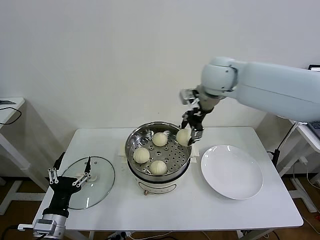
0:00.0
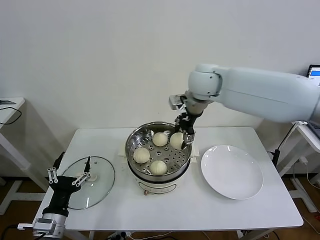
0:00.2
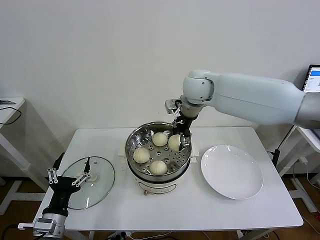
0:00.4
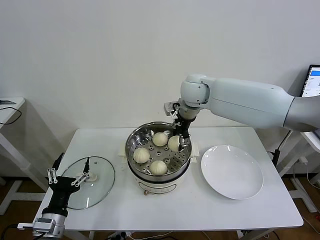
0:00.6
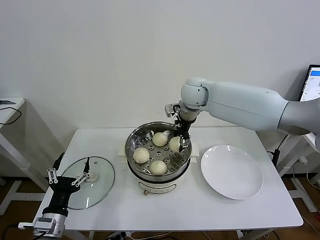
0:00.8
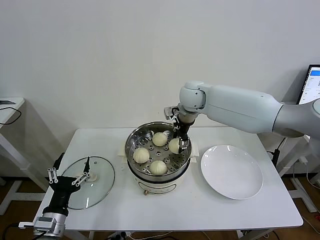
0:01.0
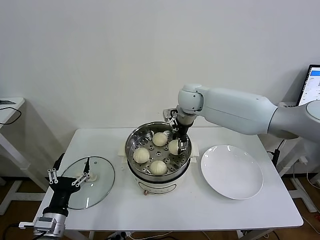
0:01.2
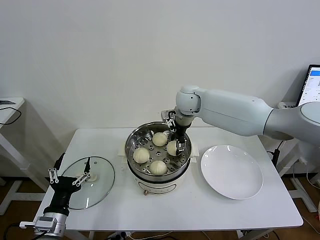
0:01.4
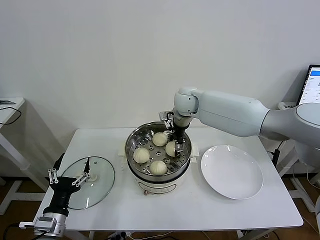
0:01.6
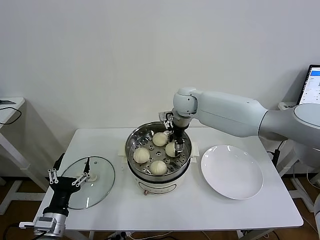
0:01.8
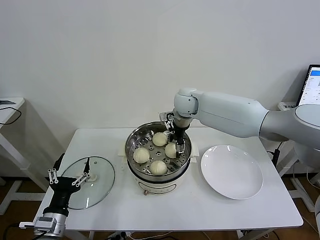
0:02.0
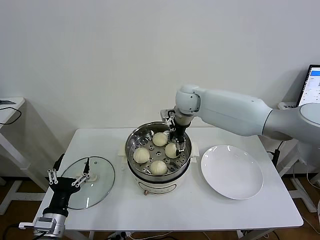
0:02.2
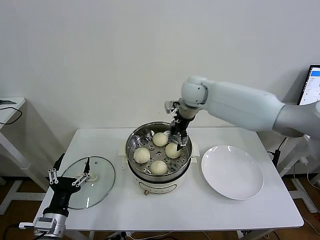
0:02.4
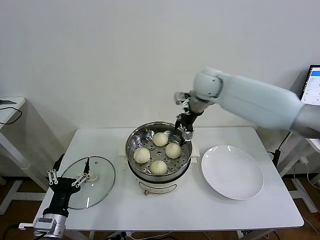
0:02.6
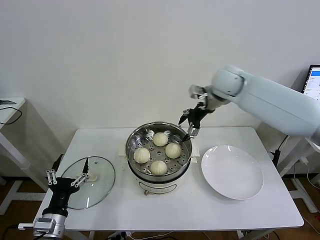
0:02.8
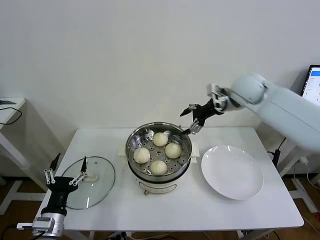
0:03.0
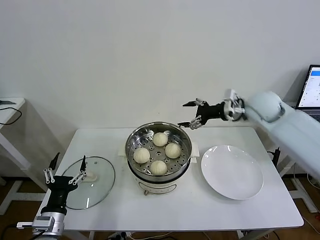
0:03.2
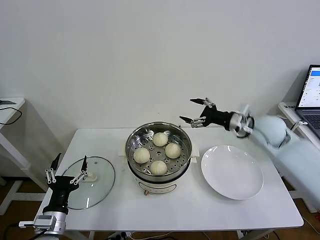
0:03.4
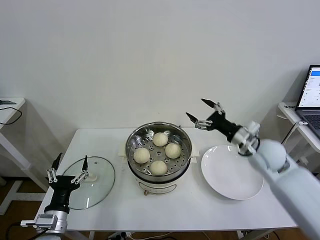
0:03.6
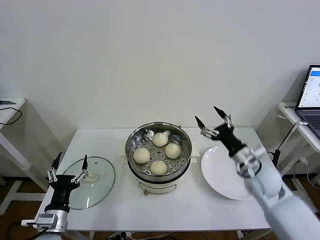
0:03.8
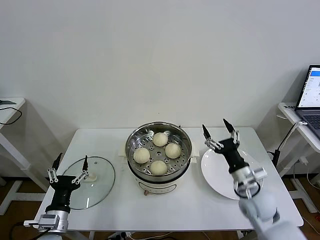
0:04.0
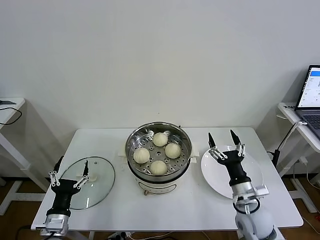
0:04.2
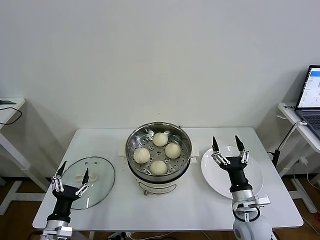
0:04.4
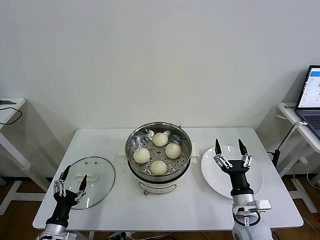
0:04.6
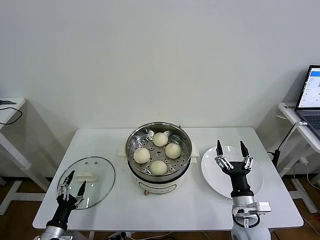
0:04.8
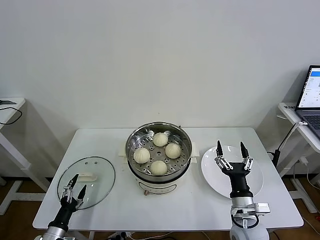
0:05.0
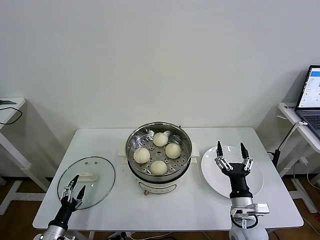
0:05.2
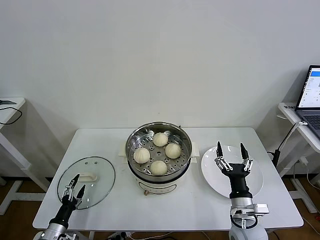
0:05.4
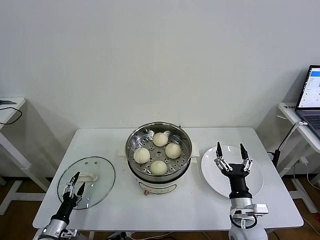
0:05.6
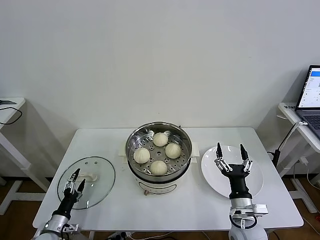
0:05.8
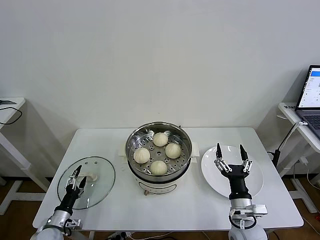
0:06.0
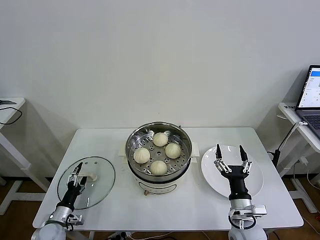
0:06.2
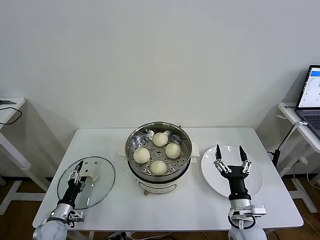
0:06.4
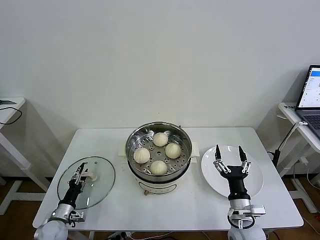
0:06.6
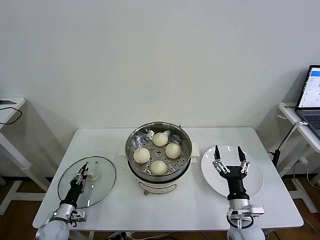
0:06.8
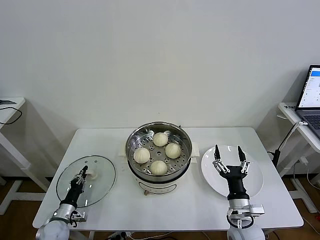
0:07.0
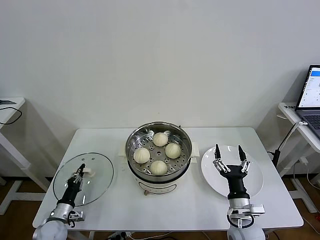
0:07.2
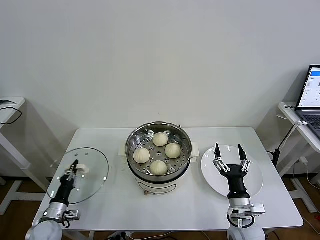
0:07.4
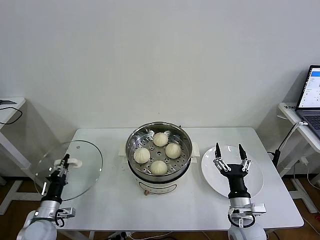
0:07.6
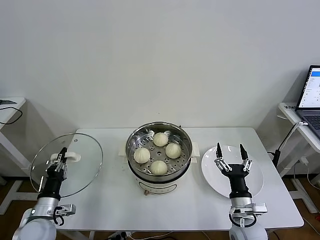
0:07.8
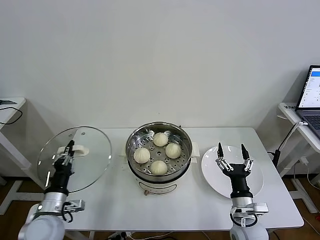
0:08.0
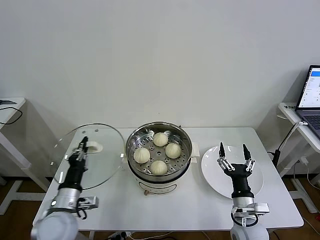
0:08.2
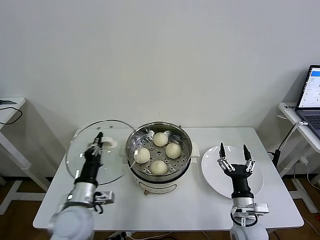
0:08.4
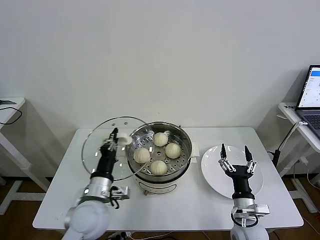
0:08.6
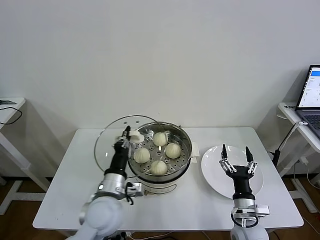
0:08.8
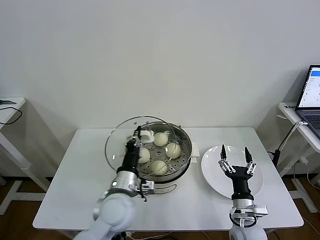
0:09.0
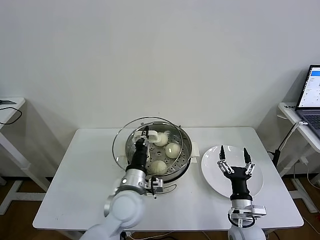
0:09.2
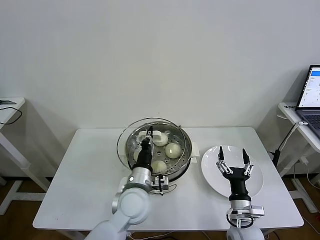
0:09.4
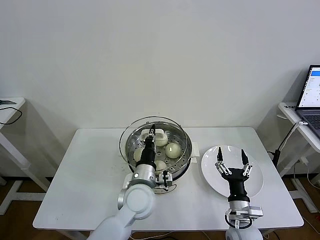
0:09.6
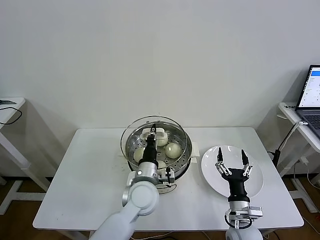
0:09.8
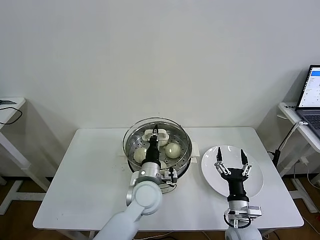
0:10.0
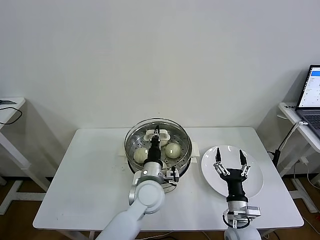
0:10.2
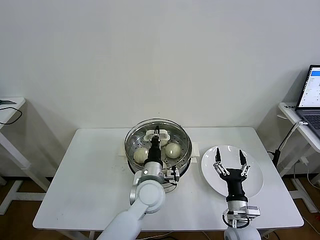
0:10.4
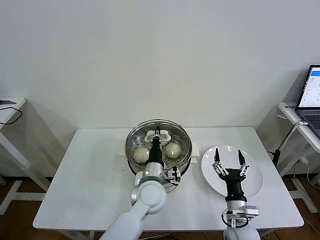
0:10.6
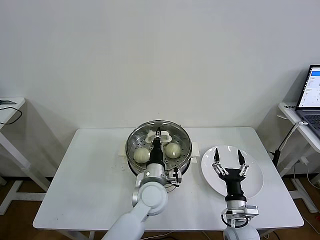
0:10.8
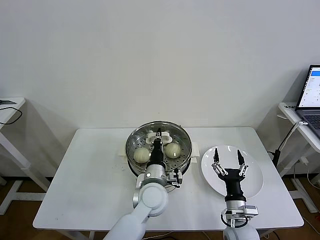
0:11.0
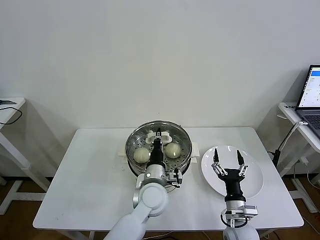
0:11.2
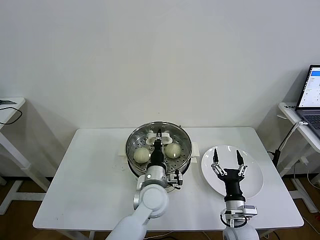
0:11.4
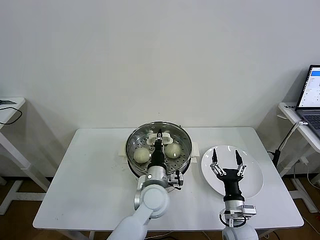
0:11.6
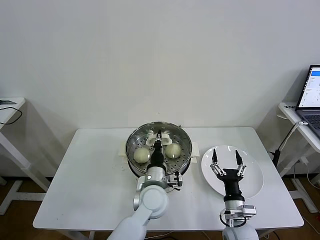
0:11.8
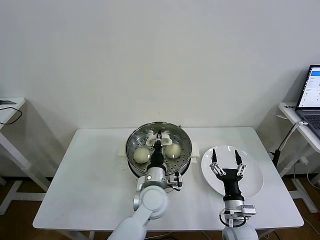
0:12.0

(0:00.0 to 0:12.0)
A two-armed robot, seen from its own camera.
Task of the whole recording: take steamed baozi put them in steamer then cover it.
Step, 0:00.0 - 0:02.2: Place the baozi on the steamer with right gripper.
Step, 0:02.4 - 0:07.0: Grasp the pot lid with left gripper.
0:00.0 - 0:01.6: The right gripper shifts approximately 15 cm downward, to the left and forward.
0:01.6 - 0:03.0: The right gripper moves to the right, approximately 15 cm, and opens its fingers.
0:03.0 - 0:04.4: The left gripper is displaced downward by roughly 5 cm; the right gripper travels backward and downward by some 40 cm.
0:04.4 - 0:06.0: The left gripper shifts roughly 15 cm downward, to the left and forward.
0:06.0 - 0:07.6: The left gripper heads upward, covering about 5 cm, and closes its fingers.
0:07.6 - 0:09.0: The left gripper is displaced to the right and upward by about 30 cm.
0:09.0 - 0:10.4: The left gripper travels to the right and forward by roughly 10 cm.
0:10.4 - 0:12.0: The grippers stay close to where they were, moving slightly.

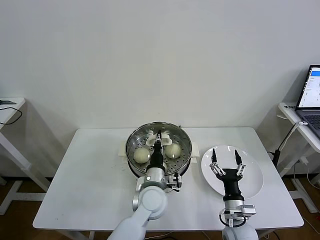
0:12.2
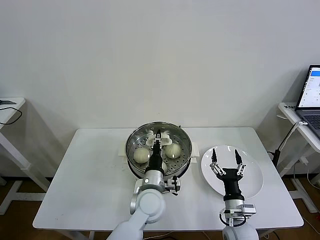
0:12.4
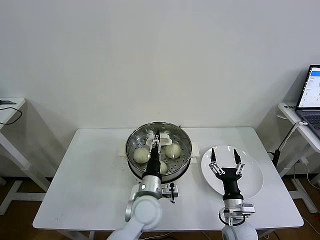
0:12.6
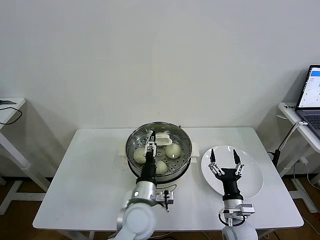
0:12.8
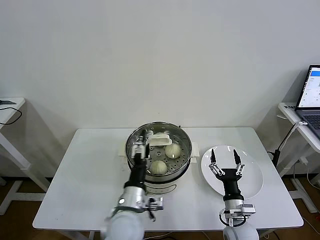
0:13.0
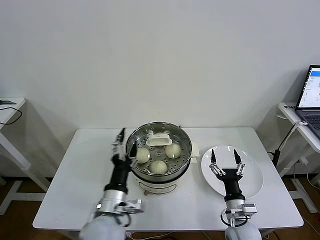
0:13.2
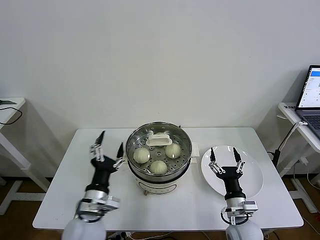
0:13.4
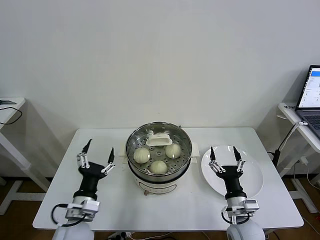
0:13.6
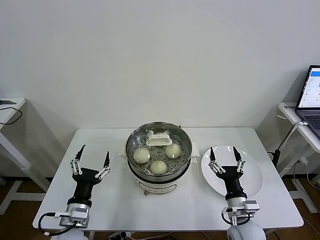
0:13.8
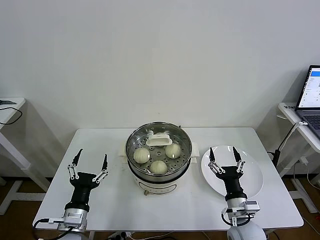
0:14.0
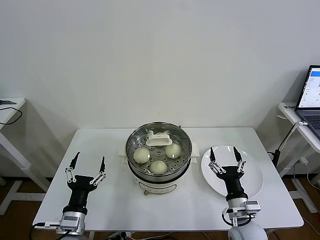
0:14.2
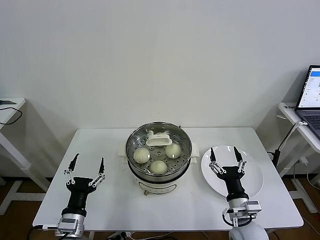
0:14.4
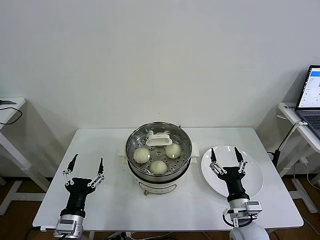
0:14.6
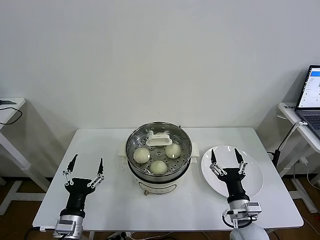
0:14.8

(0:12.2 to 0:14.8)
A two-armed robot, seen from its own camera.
Task of the whole recording: take steamed baozi put them in steamer then cover it.
0:12.2 - 0:13.4: The left gripper goes about 20 cm to the left and backward, and opens up.
0:13.4 - 0:14.8: The left gripper is displaced to the left by about 10 cm.

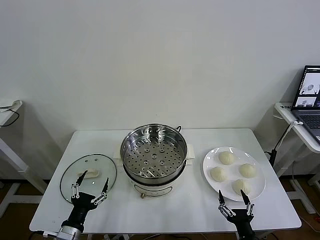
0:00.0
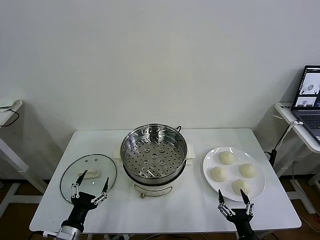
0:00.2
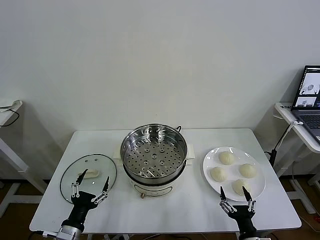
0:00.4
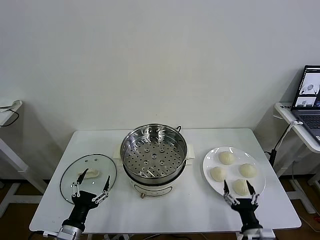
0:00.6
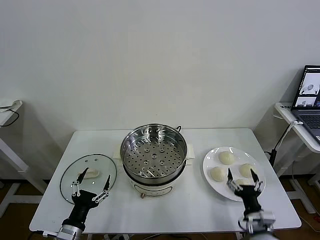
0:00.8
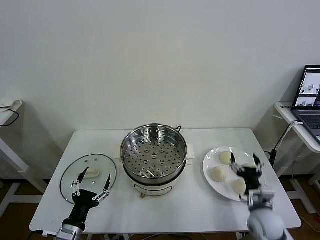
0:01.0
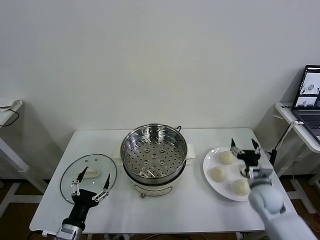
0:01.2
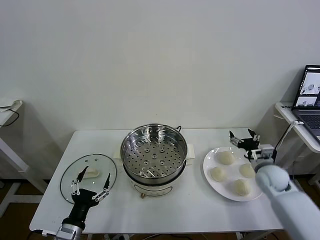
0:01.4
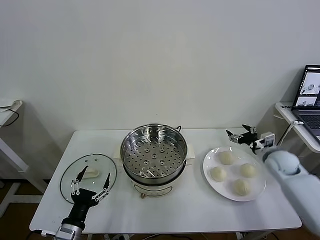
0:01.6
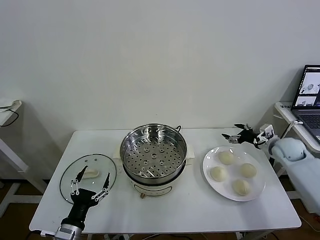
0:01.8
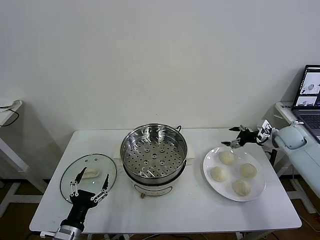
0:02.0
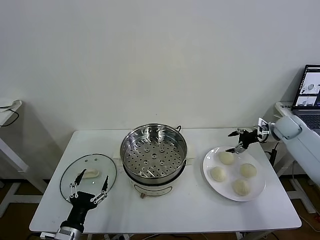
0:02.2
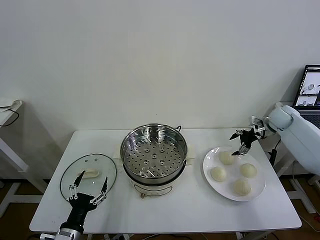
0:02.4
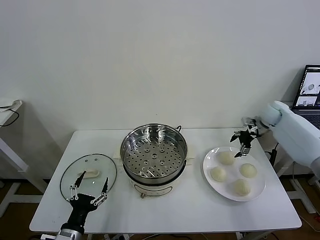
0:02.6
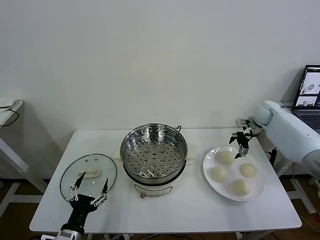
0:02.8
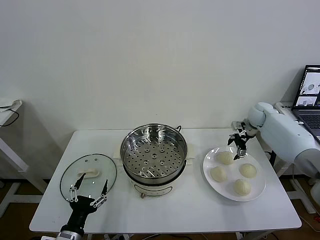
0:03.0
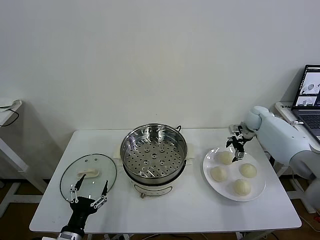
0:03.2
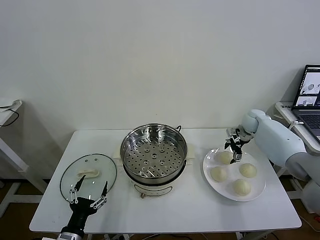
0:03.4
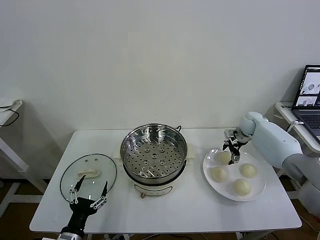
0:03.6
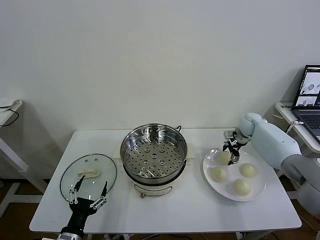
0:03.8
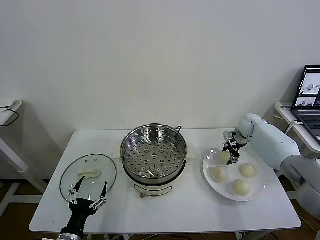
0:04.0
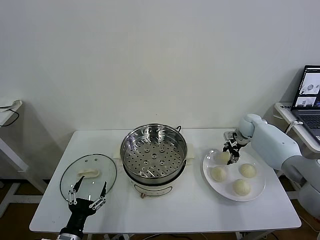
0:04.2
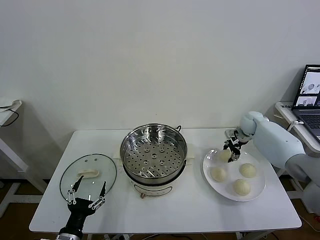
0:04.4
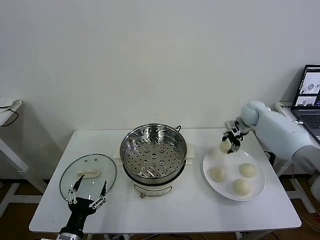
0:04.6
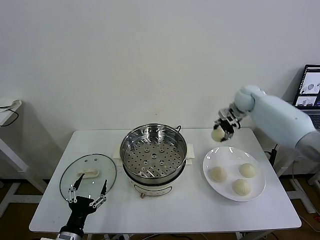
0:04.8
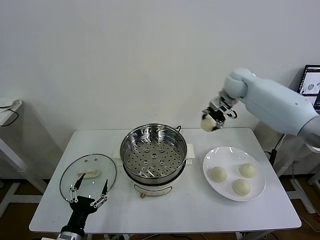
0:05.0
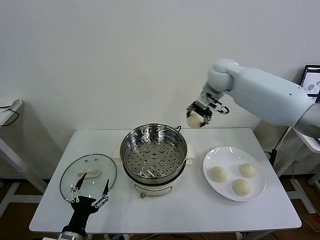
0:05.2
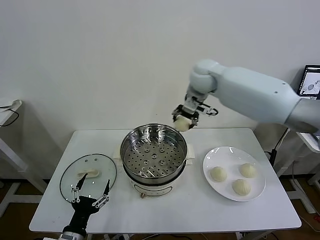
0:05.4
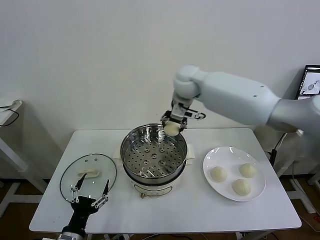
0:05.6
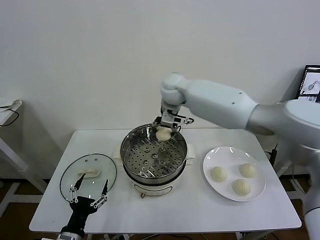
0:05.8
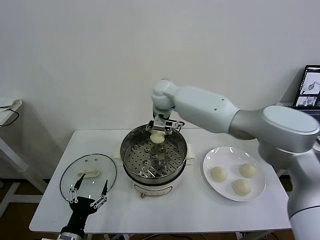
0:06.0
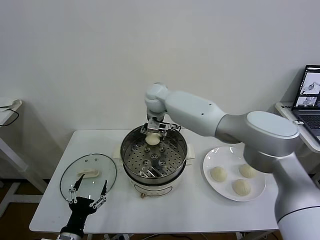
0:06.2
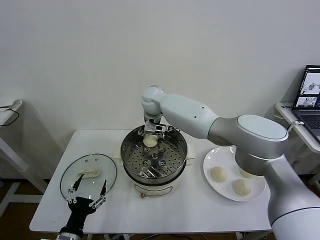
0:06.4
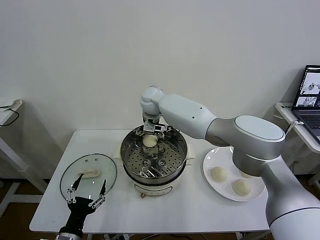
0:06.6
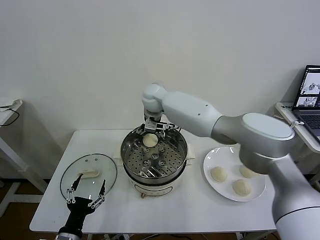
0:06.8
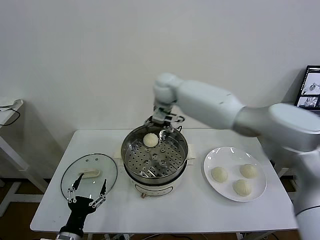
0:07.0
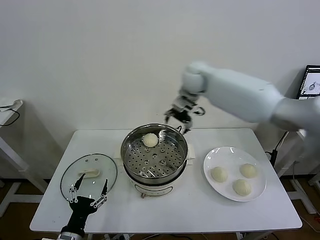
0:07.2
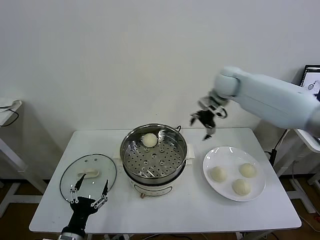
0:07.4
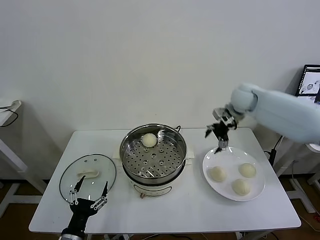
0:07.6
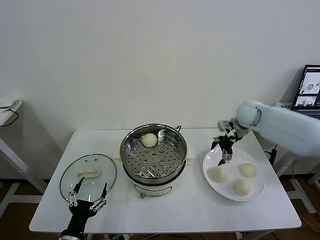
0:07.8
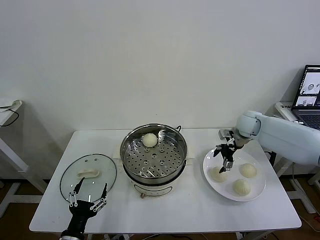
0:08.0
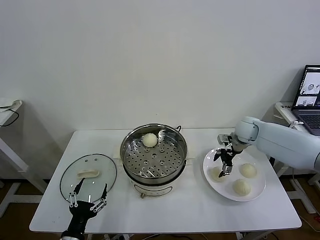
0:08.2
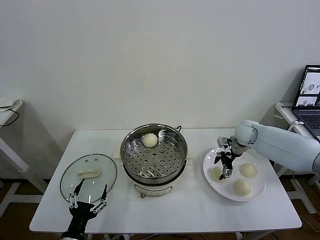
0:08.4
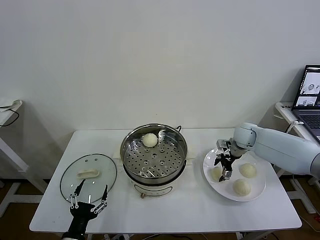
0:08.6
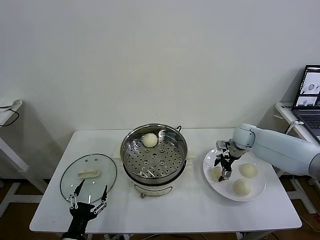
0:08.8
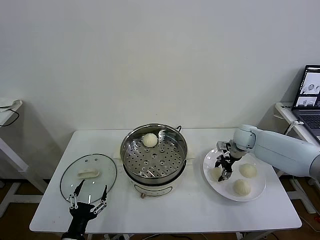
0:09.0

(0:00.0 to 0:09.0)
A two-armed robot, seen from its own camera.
Task of the whole recording: take steamed baozi put them in steamer then cover it.
Step, 0:00.0 - 0:04.0: Grasp the baozi in the plate with right gripper.
Step, 0:04.2 - 0:06.8: Place the baozi on the steamer with right gripper.
0:01.6 - 0:03.0: The right gripper shifts about 15 cm forward.
0:03.0 - 0:04.4: The right gripper closes.
0:04.4 - 0:06.0: The right gripper goes about 40 cm to the left.
0:06.0 - 0:07.6: The right gripper is displaced to the right by some 30 cm, and opens.
0:07.6 - 0:09.0: The right gripper moves downward, roughly 15 cm, and closes its fingers.
